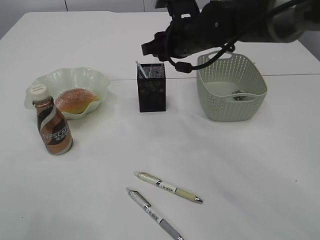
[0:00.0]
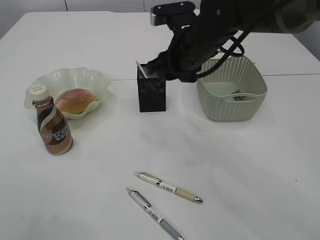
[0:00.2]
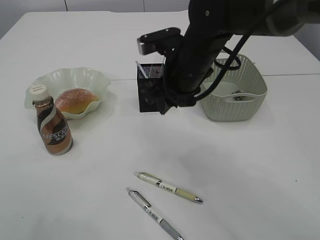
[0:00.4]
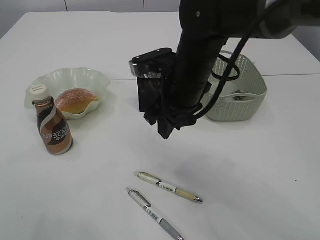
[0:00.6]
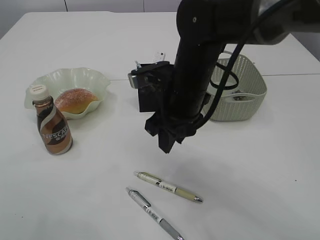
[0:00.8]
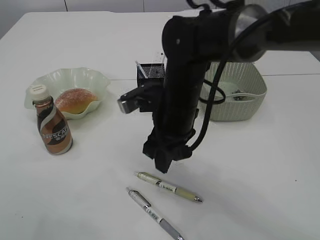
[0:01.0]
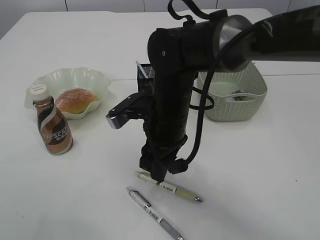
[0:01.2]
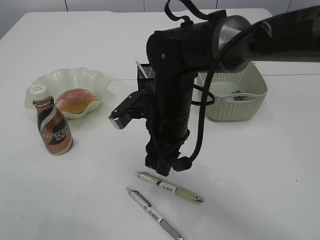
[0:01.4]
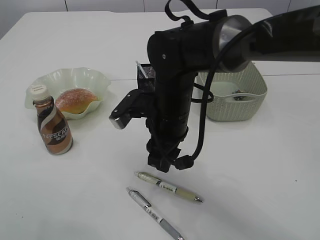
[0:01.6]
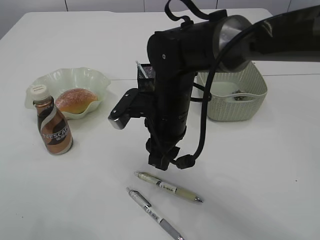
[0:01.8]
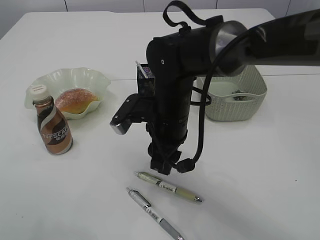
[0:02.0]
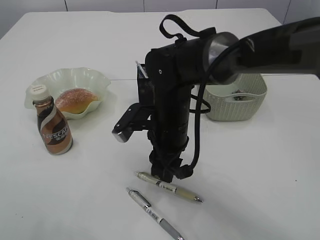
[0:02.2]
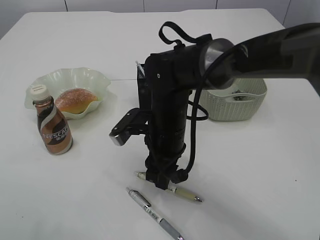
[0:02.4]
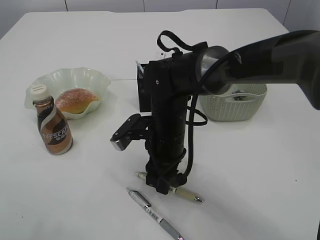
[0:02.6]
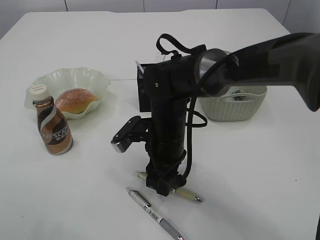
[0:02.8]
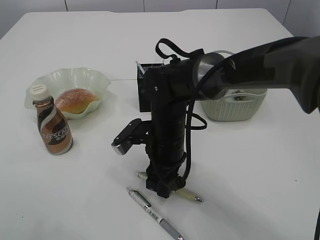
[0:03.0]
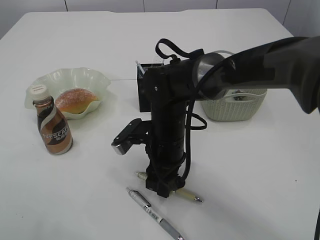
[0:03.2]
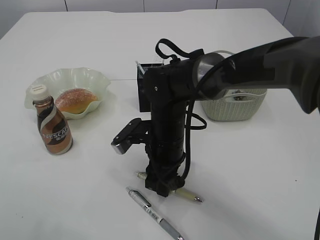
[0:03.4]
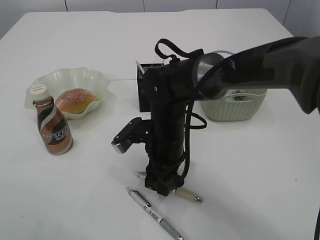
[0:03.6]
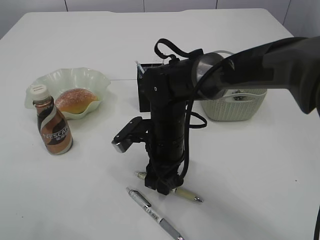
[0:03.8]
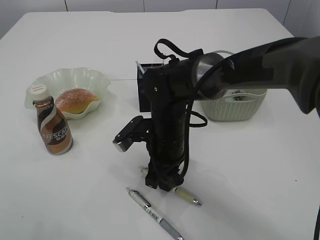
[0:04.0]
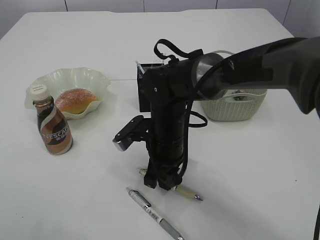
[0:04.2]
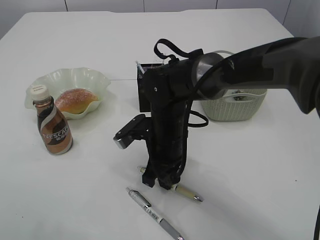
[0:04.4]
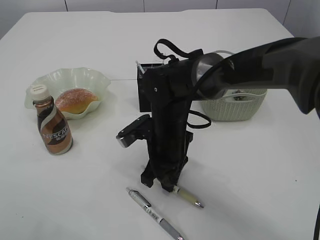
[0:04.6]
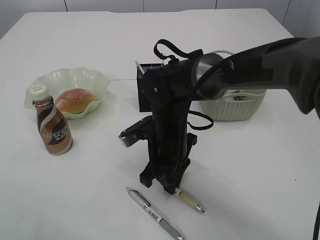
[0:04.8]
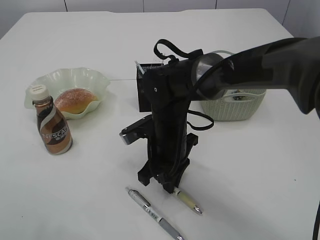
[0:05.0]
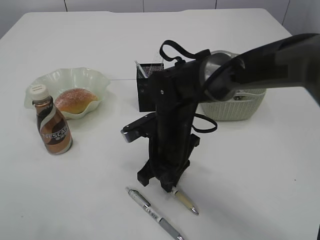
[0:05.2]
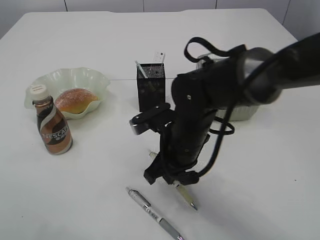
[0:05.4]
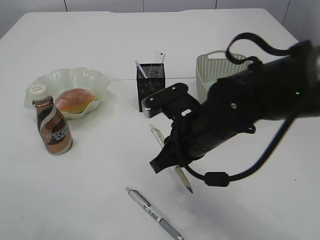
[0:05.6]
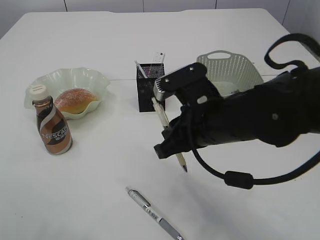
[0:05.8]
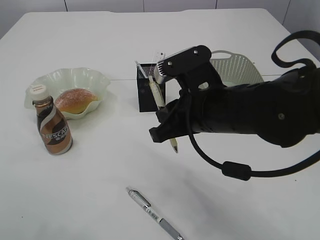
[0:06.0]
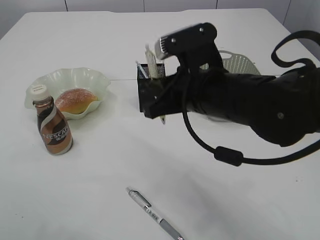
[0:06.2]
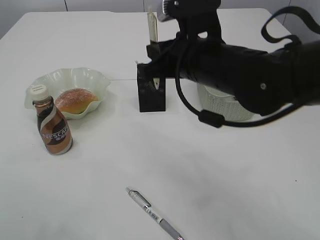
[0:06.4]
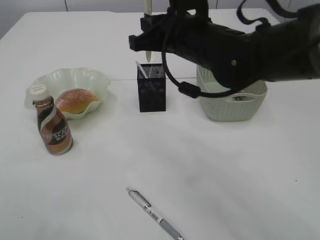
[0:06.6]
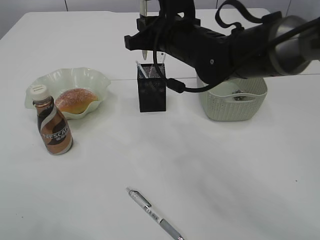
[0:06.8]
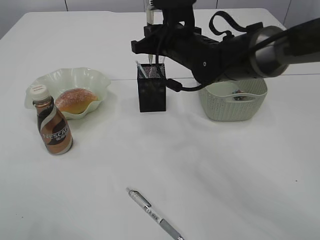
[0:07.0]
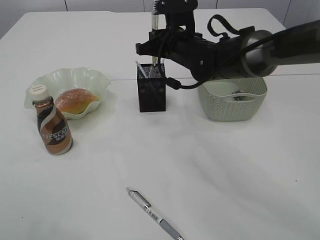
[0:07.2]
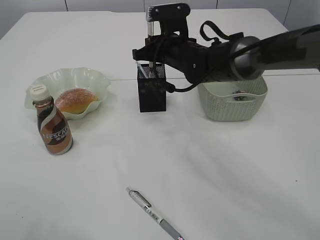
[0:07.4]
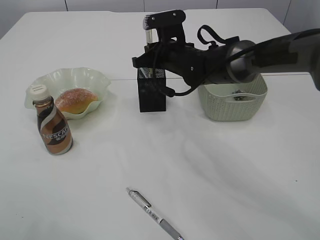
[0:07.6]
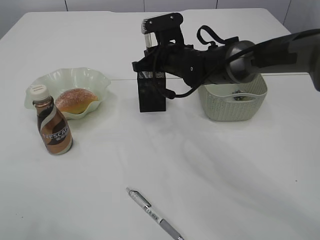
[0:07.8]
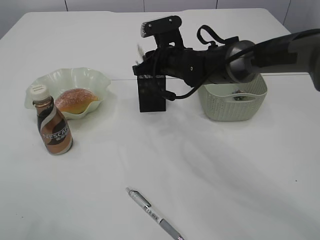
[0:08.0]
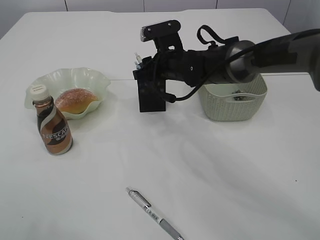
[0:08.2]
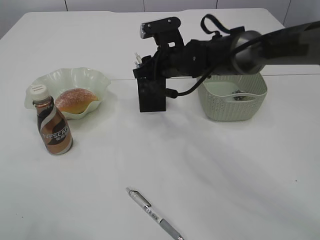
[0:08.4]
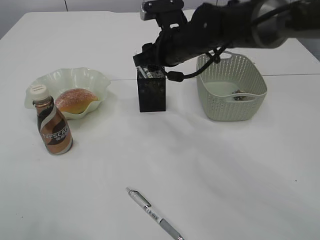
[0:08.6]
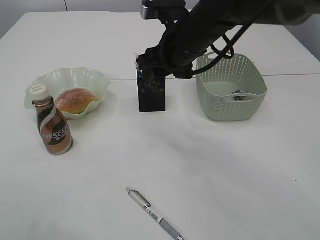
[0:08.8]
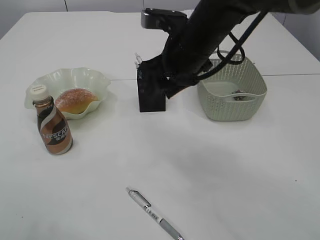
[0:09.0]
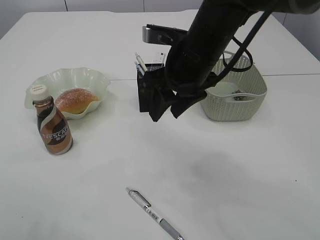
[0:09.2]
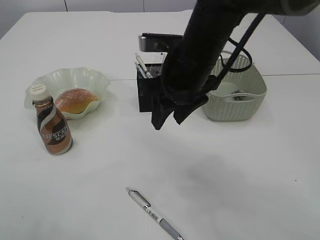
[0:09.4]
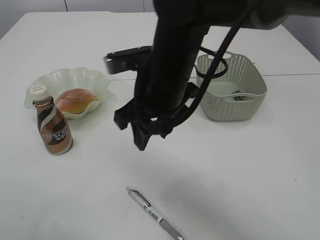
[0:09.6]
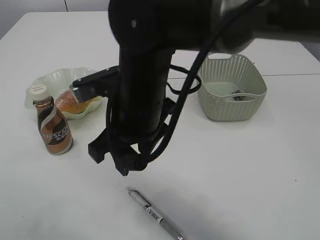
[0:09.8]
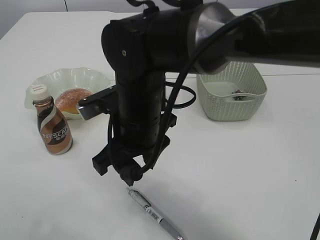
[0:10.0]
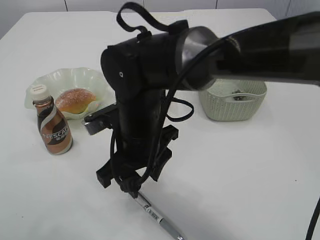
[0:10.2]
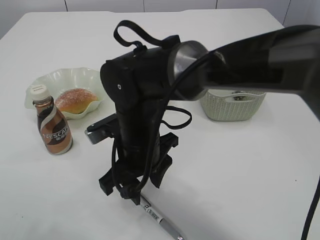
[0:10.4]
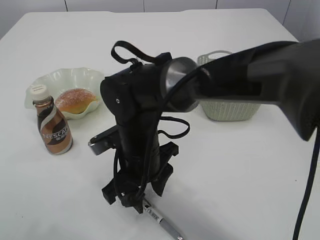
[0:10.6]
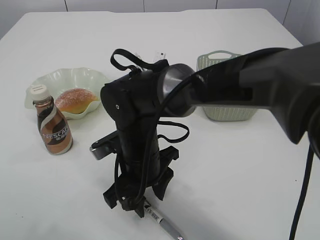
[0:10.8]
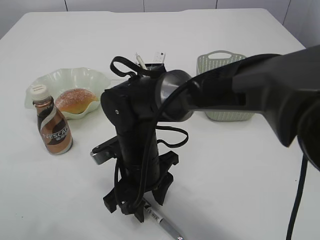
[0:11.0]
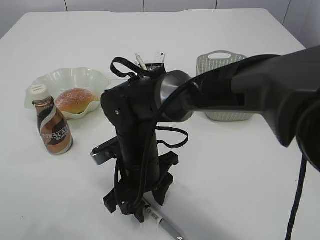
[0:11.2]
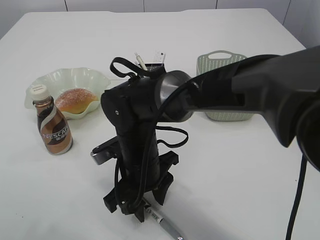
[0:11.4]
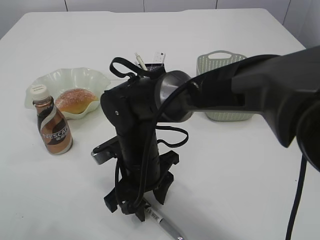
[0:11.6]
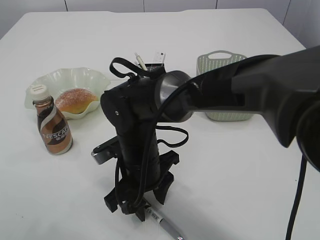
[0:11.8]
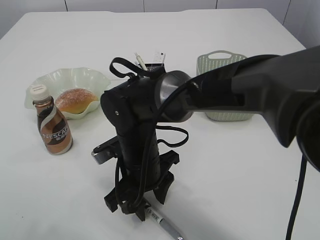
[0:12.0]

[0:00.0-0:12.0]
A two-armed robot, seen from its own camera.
Step, 0:00.0 to 0:05.4: Pick up the pen with right arm.
Step, 0:05.6 to 0:09.0: Place the pen into the pen holder.
0:00.0 to 0:01.6: The right gripper shifts some 15 cm backward, downward and to the left.
0:01.6 to 0:03.0: The right gripper heads downward, covering roughly 5 cm.
0:03.0 to 0:04.4: The right gripper closes.
0:04.4 to 0:06.0: The right gripper is displaced upward, backward and to the right by roughly 15 cm.
0:06.0 to 0:07.6: The right gripper travels forward by roughly 20 cm.
0:07.6 to 0:09.0: The right gripper is displaced backward and upward by some 15 cm, and opens up.
0:09.0 to 0:10.4: The right gripper moves downward, to the left and backward, some 15 cm.

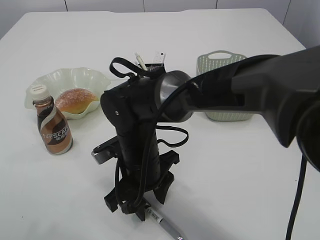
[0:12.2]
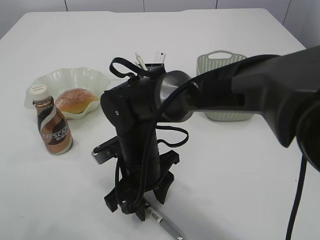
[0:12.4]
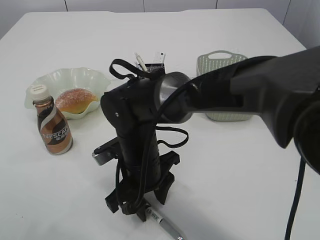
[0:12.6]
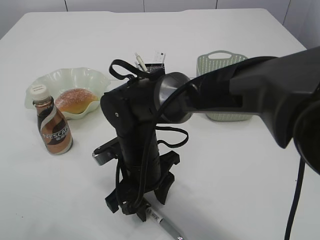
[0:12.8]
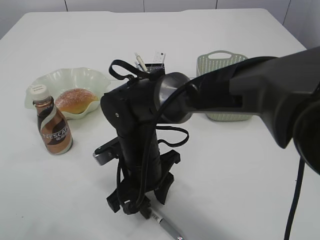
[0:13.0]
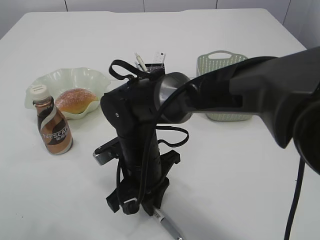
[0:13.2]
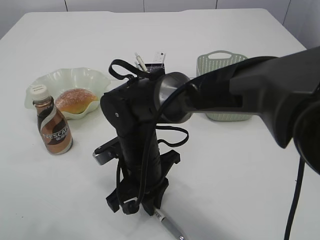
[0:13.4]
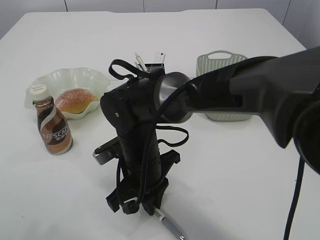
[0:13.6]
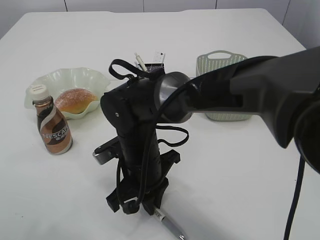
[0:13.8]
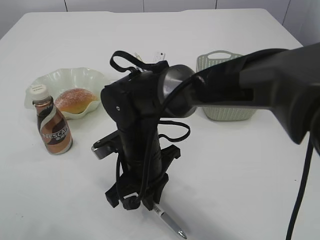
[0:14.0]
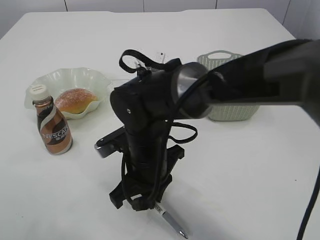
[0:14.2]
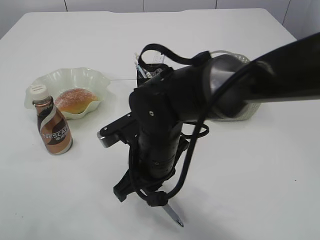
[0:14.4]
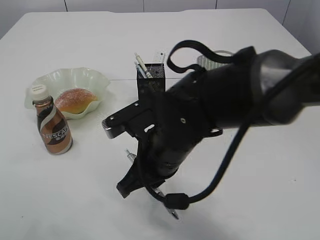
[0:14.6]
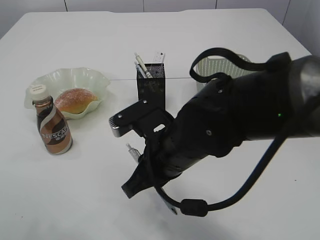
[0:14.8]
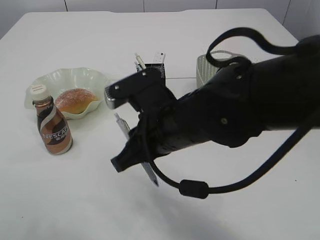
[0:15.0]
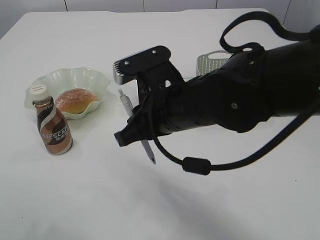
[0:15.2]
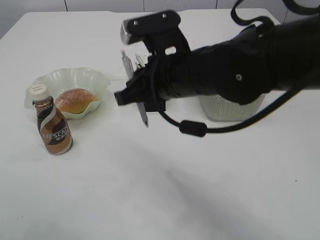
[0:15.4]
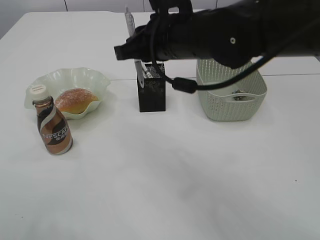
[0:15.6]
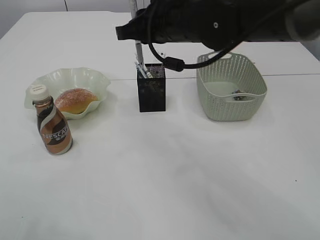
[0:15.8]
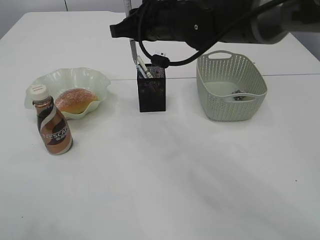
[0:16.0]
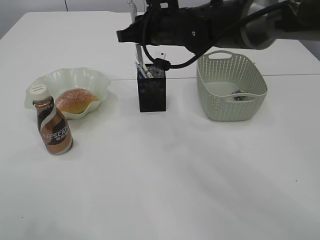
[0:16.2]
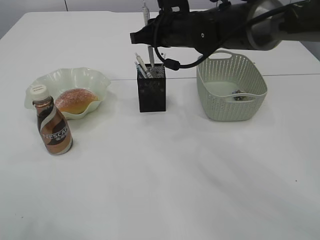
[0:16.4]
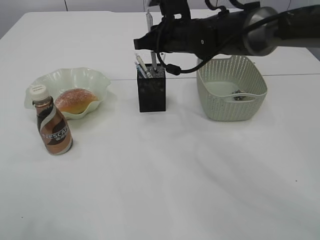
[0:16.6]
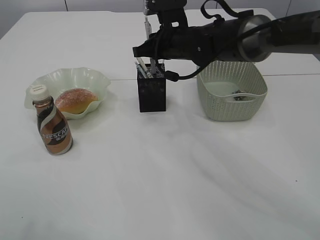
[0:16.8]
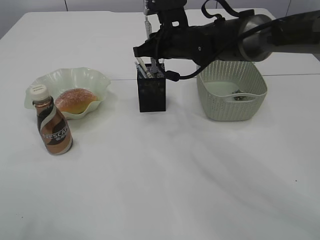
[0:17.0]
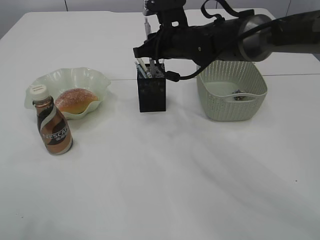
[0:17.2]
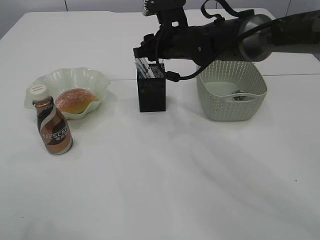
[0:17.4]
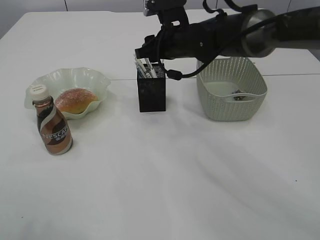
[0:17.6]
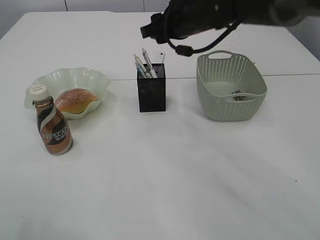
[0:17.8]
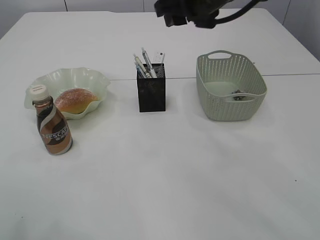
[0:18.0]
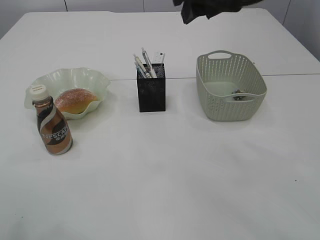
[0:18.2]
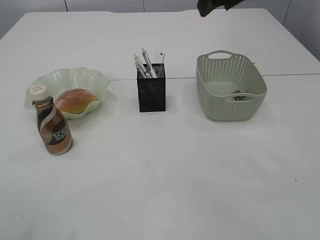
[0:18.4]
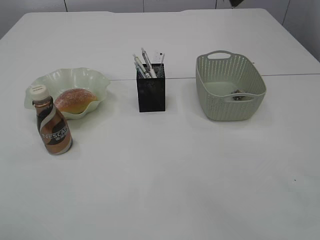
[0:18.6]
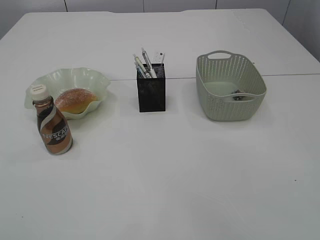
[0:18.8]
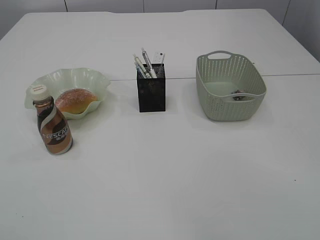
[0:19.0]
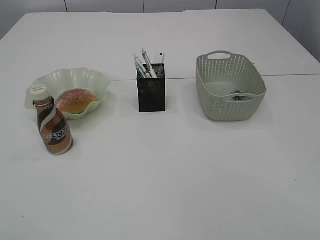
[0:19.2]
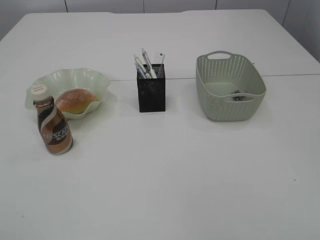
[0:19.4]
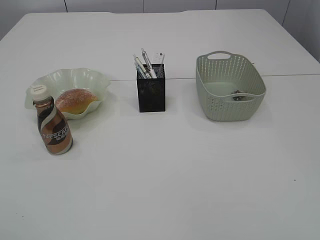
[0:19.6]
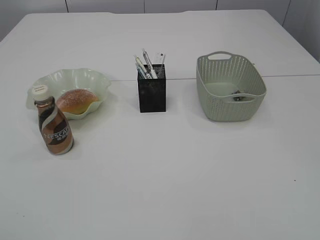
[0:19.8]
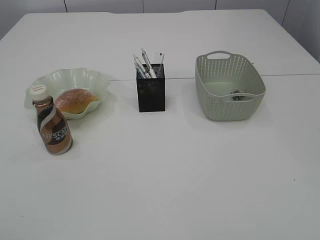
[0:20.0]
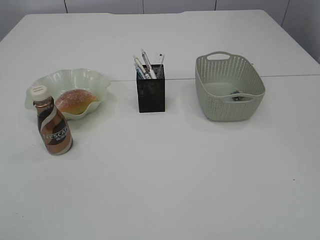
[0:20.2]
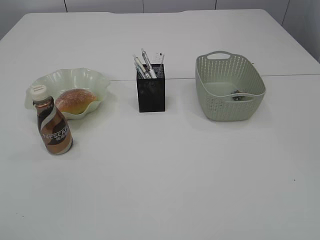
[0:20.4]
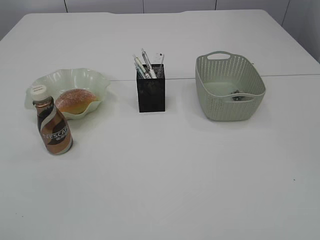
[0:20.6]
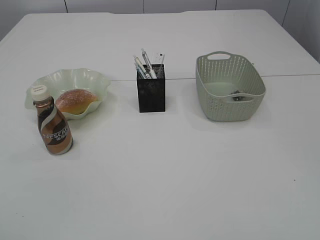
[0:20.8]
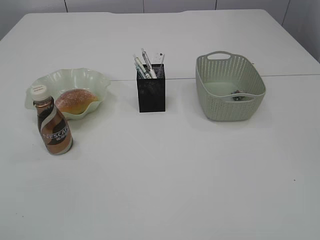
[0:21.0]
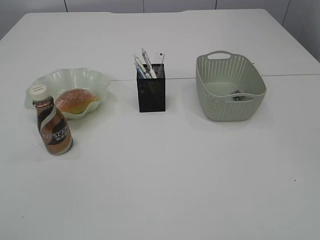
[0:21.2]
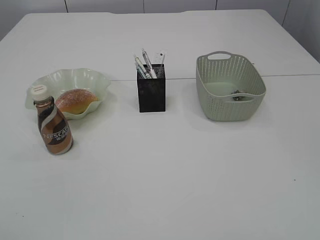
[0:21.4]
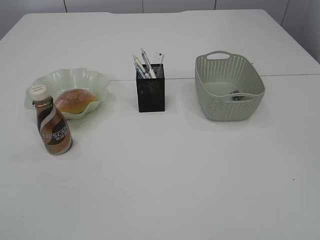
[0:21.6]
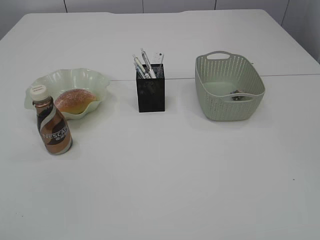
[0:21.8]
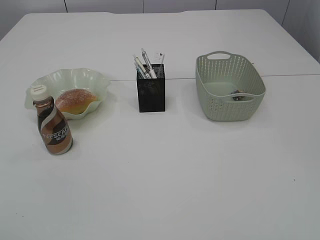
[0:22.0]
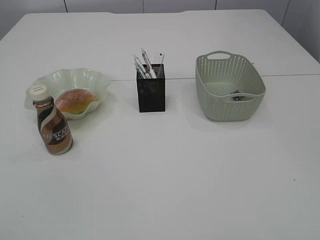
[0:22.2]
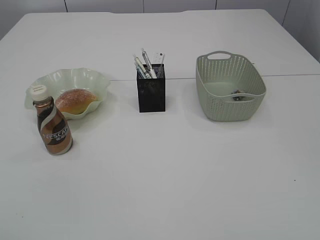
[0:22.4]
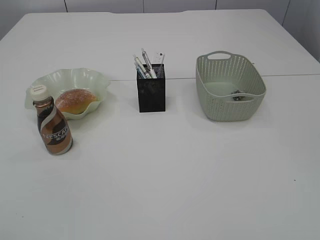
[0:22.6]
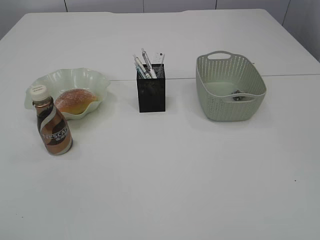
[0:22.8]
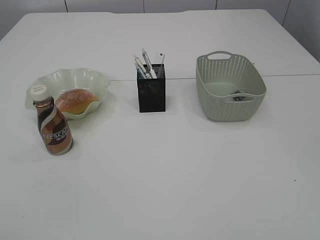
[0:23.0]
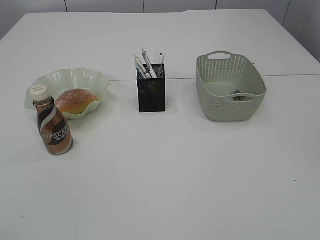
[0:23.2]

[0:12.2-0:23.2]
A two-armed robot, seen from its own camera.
Step, 0:12.2 to 0:14.6: Pick up the pen with right arm.
Step, 0:14.8 to 0:18.0: Place the pen into the pen holder.
0:12.2 to 0:13.8: The right gripper closes up.
0:13.8 to 0:15.4: The right gripper moves upward and to the right, roughly 15 cm.
0:15.4 to 0:17.0: The right gripper moves forward, some 15 cm.
0:17.0 to 0:18.4: The left gripper opens. Meanwhile the right gripper heads upward and backward, covering approximately 20 cm, and opens up.
0:18.4 to 0:20.0: The left gripper shifts about 25 cm backward and downward. Meanwhile the right gripper shifts approximately 40 cm backward and to the right.
